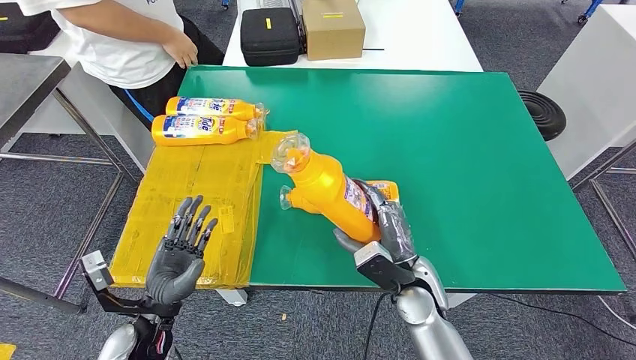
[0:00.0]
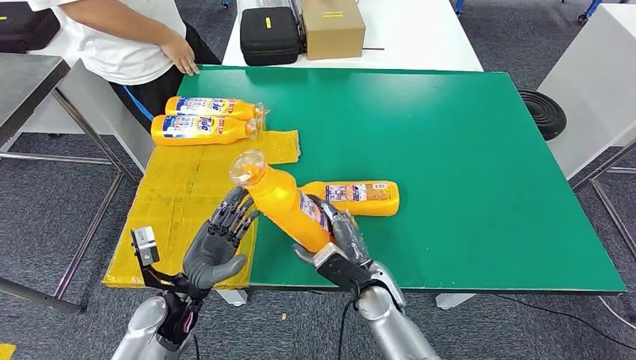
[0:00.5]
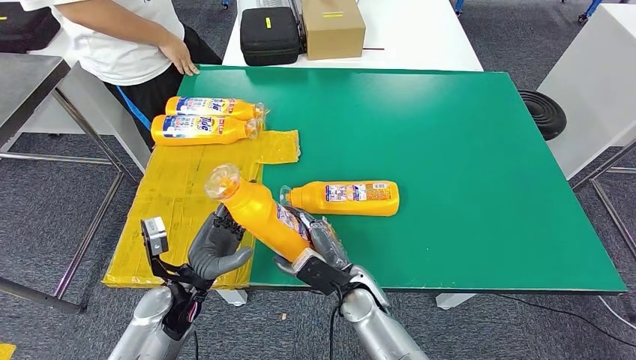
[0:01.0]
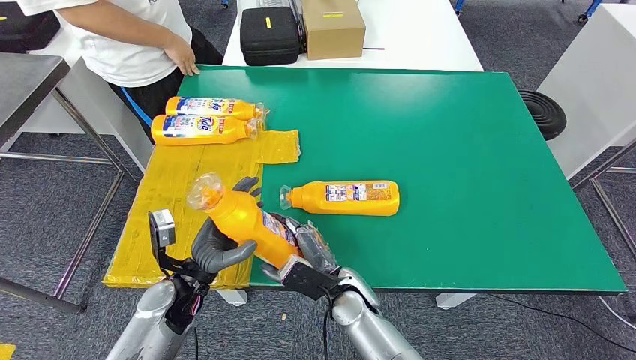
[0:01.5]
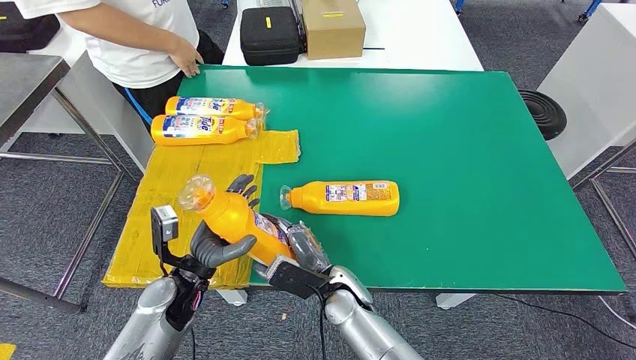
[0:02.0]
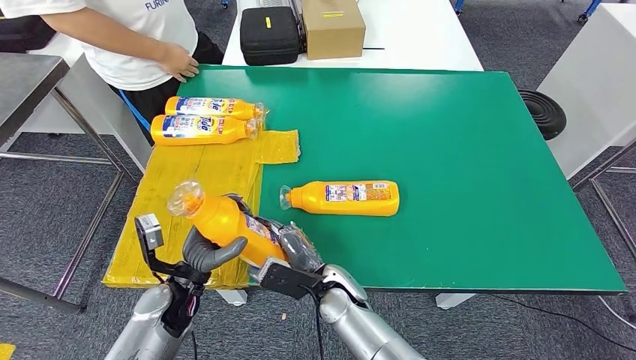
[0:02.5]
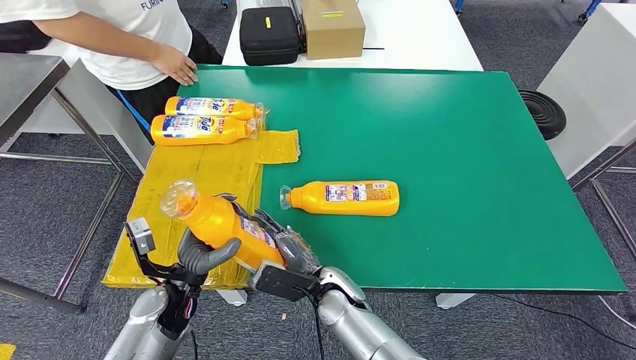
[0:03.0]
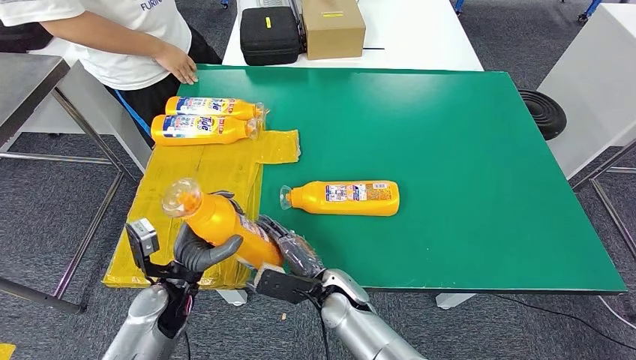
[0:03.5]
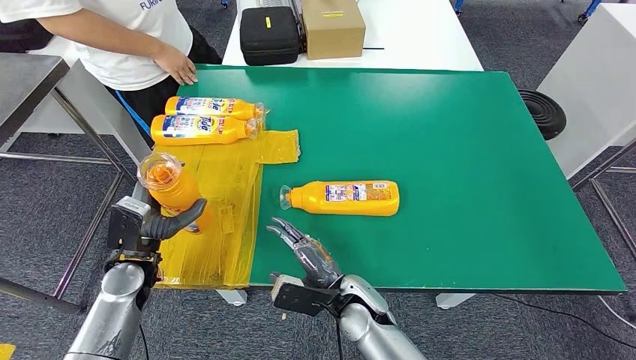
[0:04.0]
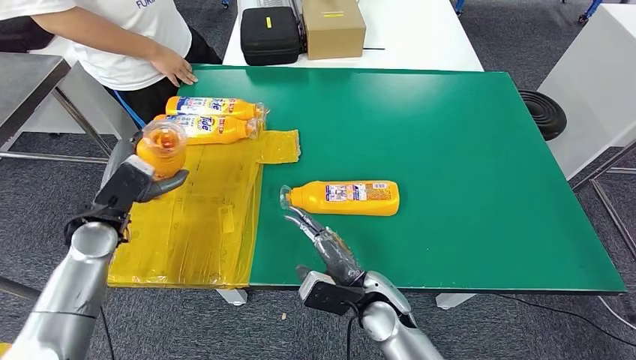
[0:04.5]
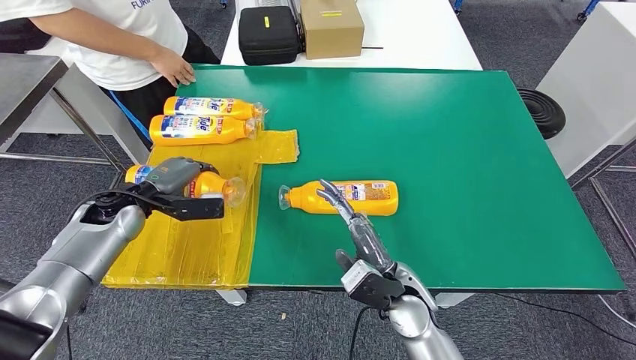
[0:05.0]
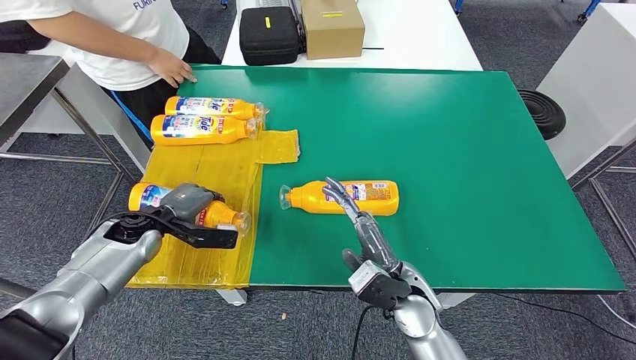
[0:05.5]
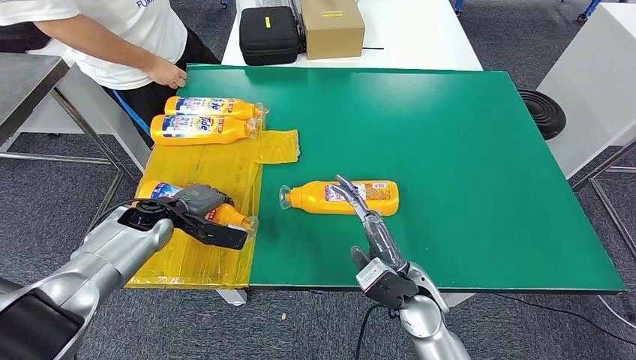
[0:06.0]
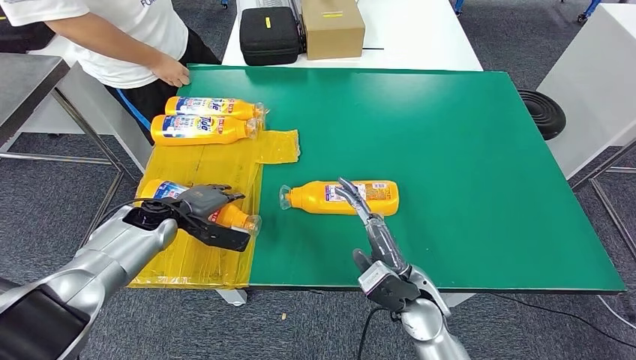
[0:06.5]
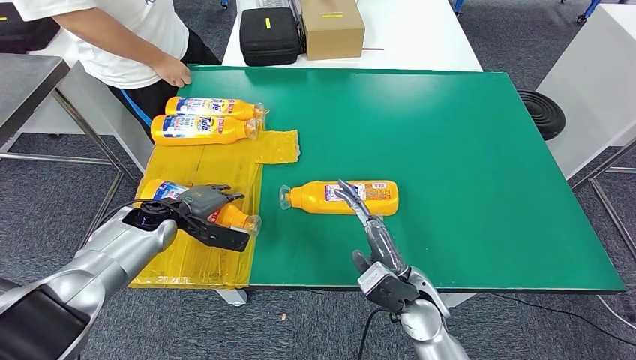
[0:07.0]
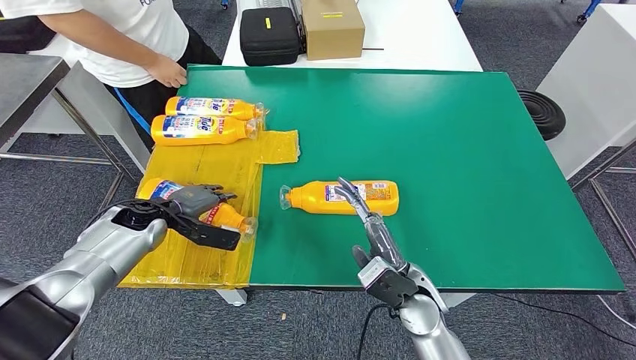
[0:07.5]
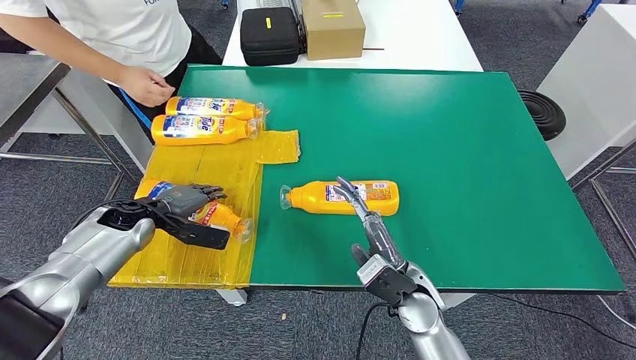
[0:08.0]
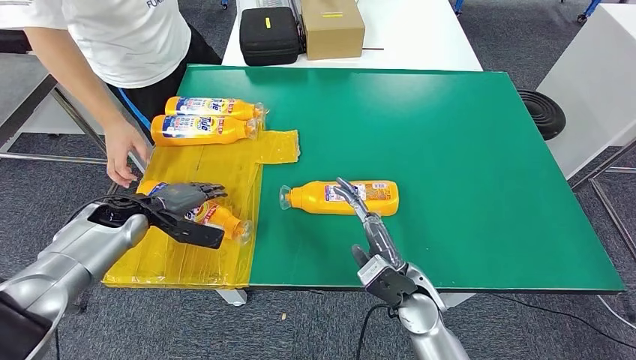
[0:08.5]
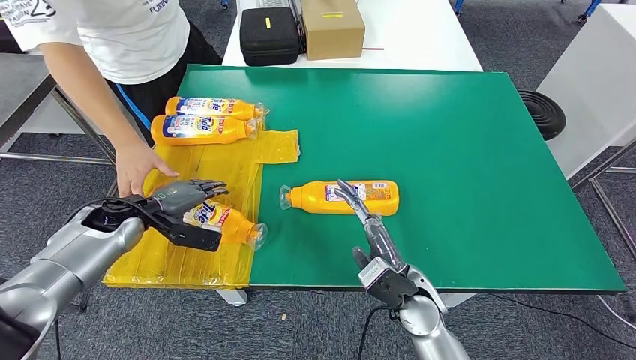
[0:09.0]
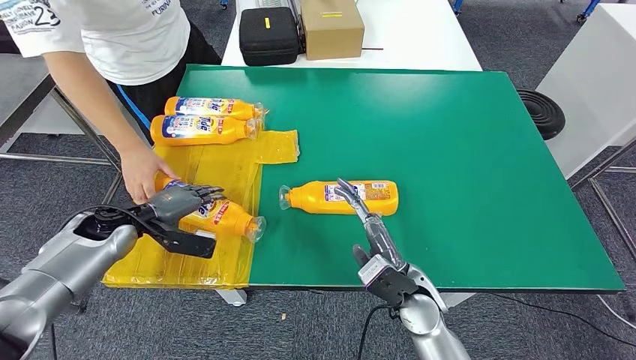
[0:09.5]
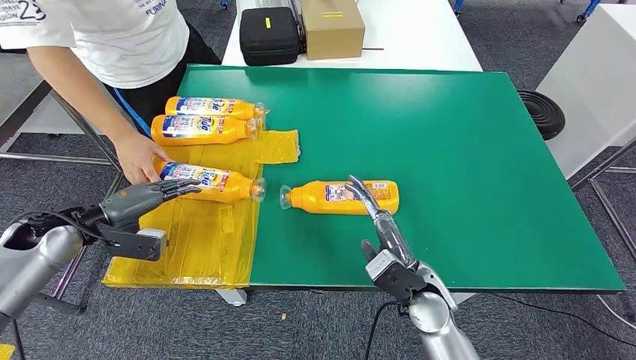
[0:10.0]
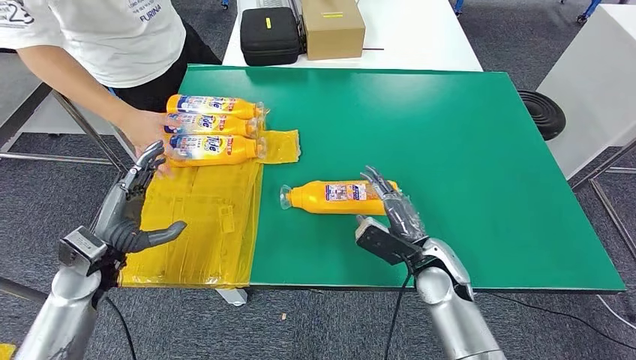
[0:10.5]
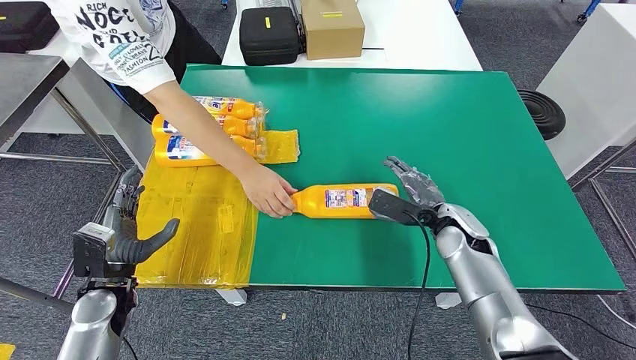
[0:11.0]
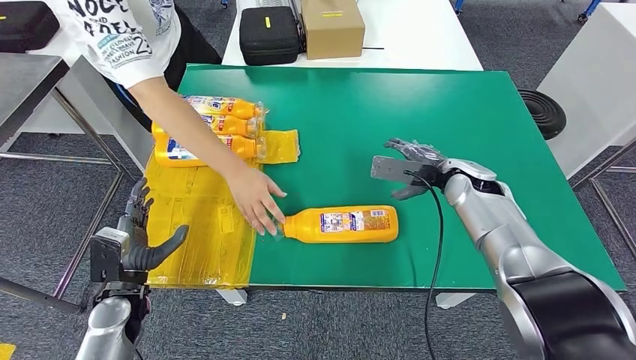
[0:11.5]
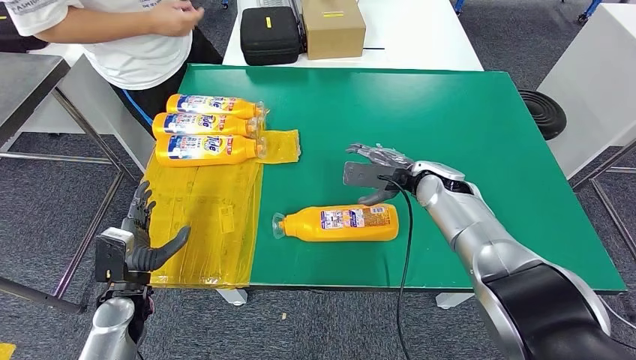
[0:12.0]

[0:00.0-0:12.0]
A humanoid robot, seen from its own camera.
Step, 0:01.0 to 0:06.0: Flip the fast-moving consumer goods bottle to the front side.
0:00.0 to 0:02.0: The right hand shifts approximately 10 cm to the left, while the left hand goes approximately 5 cm forward.
0:02.0 to 0:04.0: The left hand moves to the left, approximately 10 cm.
0:04.0 to 0:06.0: The right hand heads to the right and upward, covering some 10 cm, while the left hand moves forward, some 10 cm.
0:06.0 to 0:08.0: The hands stay close to where they were, moving slightly.
0:08.0 to 0:10.0: The left hand heads to the left and upward, covering about 10 cm.

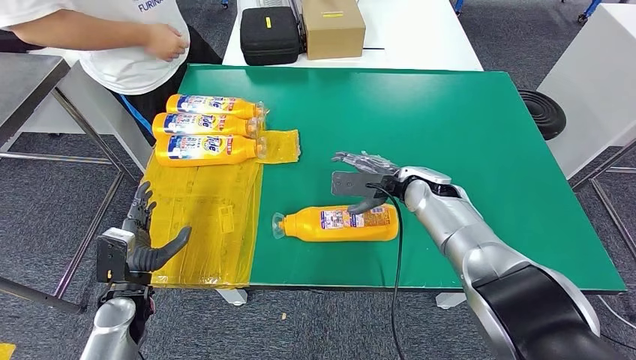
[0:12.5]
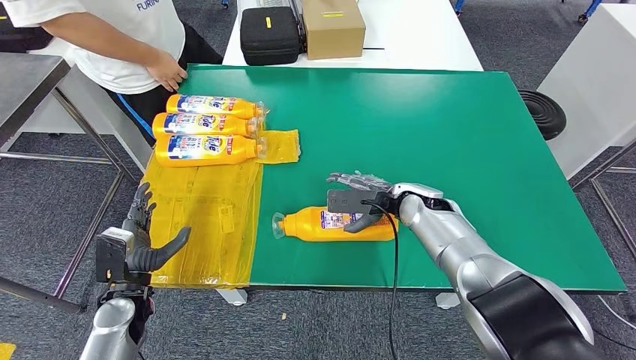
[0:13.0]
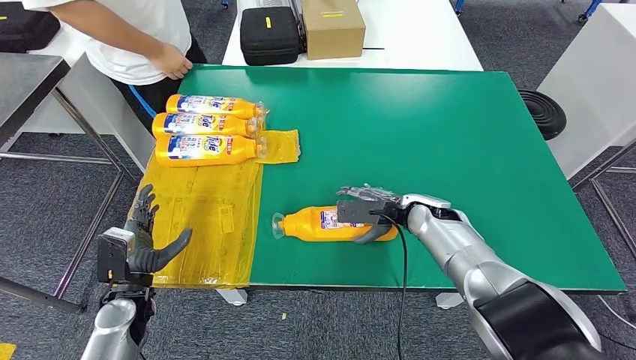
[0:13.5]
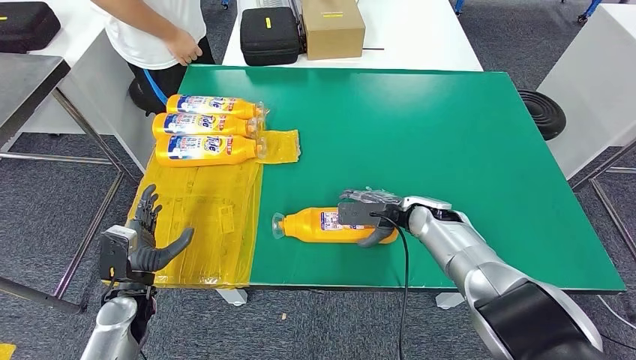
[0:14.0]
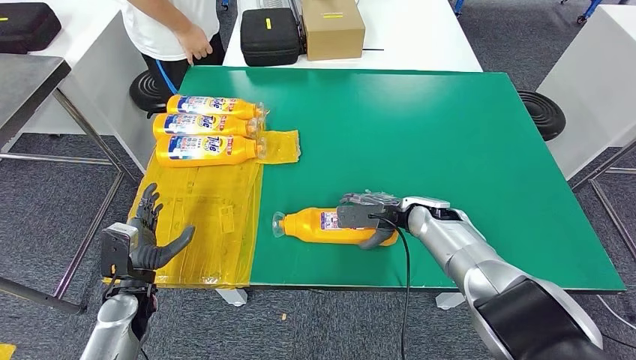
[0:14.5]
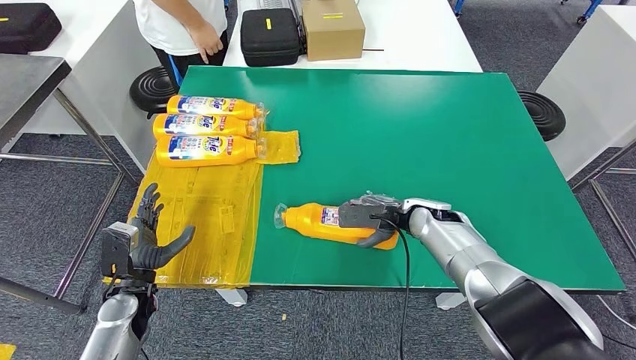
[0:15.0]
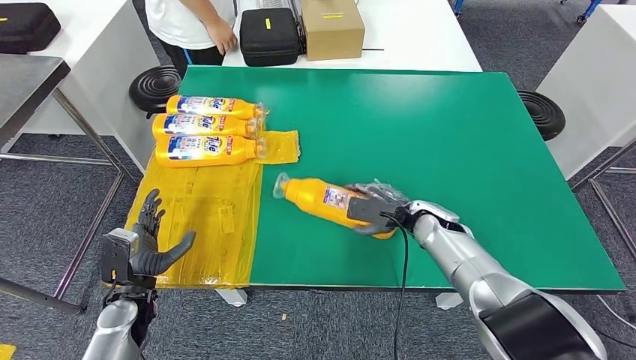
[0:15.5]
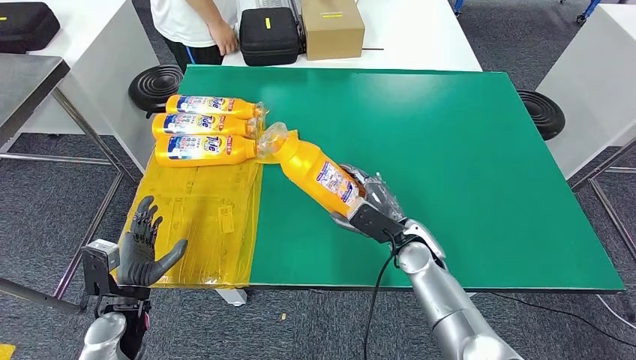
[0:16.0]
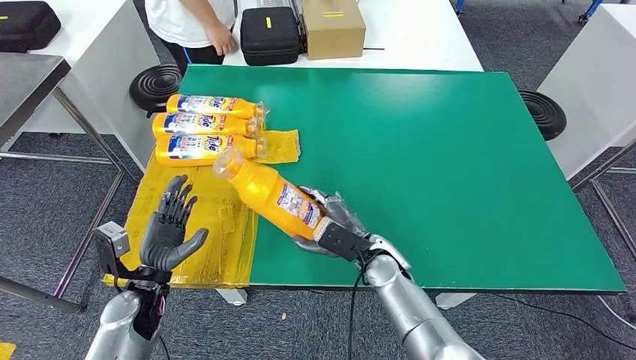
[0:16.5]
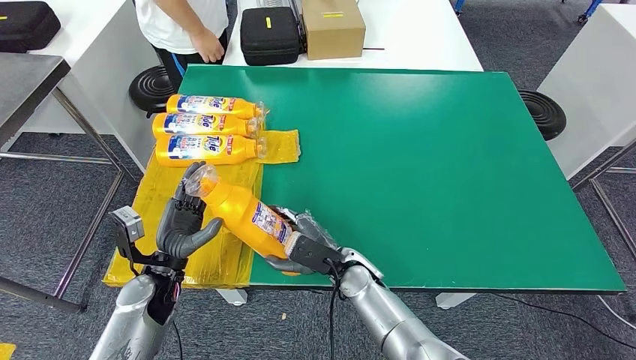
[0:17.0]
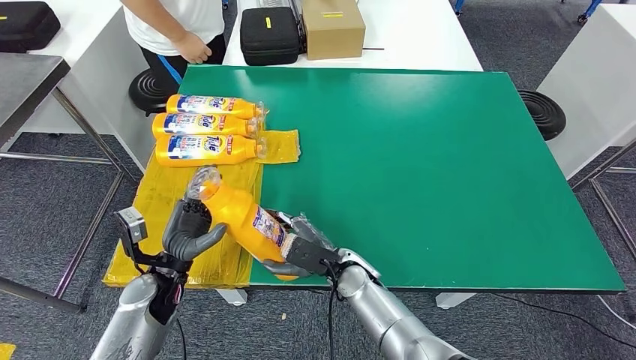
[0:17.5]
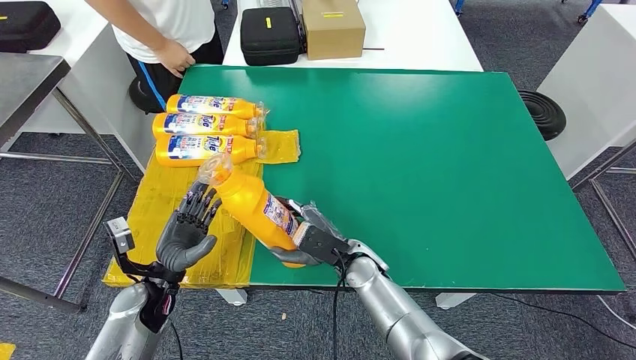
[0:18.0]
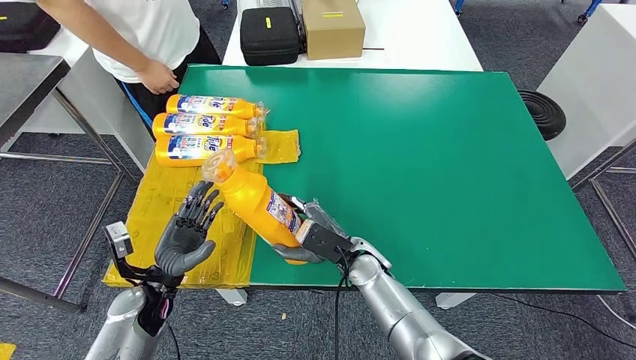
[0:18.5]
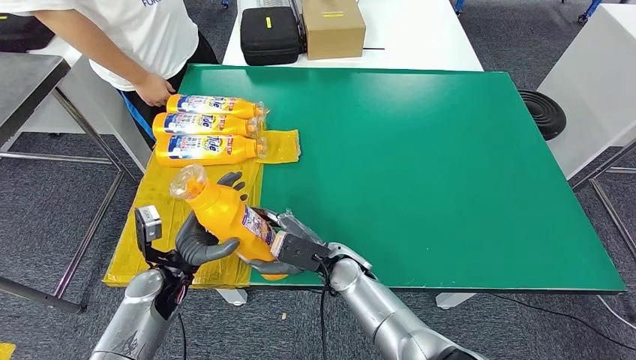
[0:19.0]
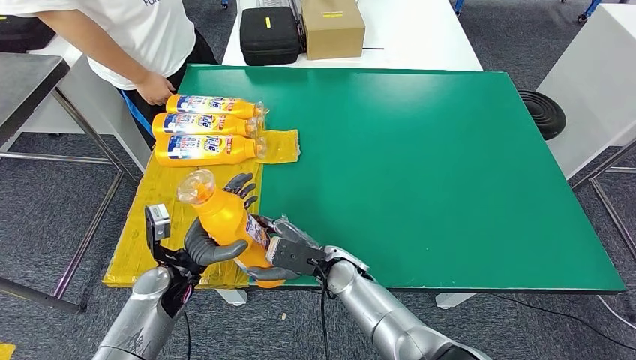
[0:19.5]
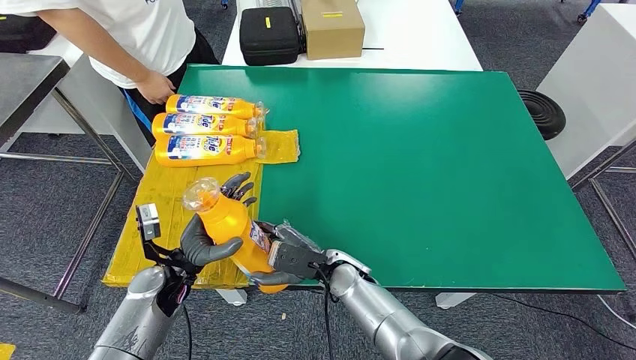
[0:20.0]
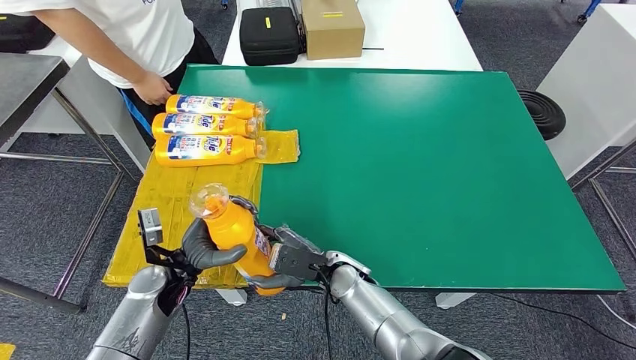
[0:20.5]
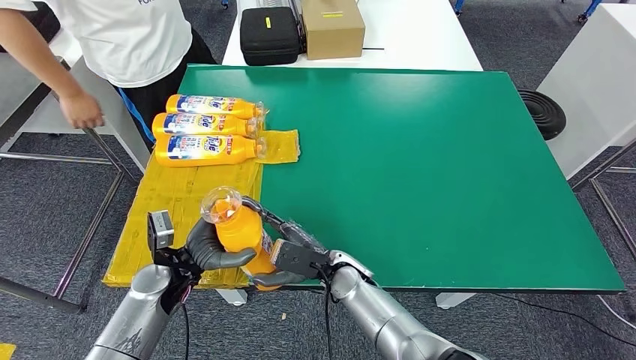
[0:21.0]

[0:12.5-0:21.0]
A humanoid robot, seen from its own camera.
Step, 0:12.5 to 0:17.5: Pick up the fast-moving consumer goods bottle from the table.
0:12.5 to 0:14.5: The right hand shifts approximately 5 cm downward.
0:19.0 to 0:21.0: The hands make only small movements.
